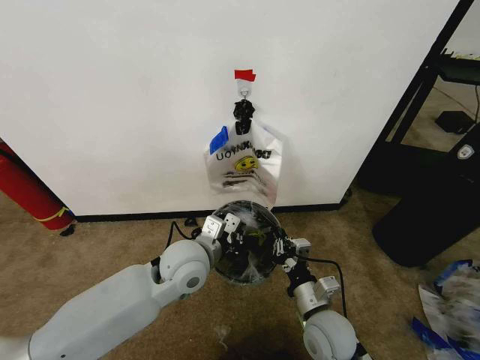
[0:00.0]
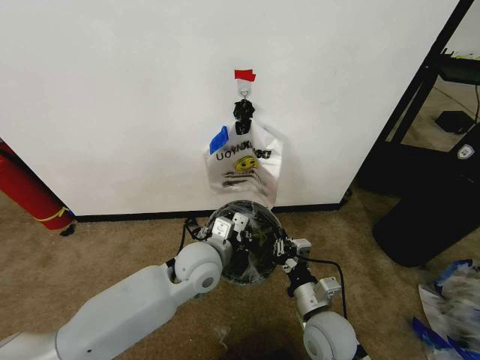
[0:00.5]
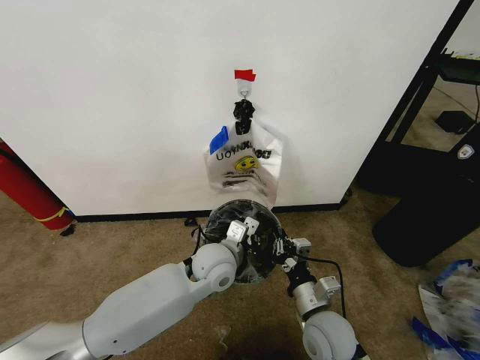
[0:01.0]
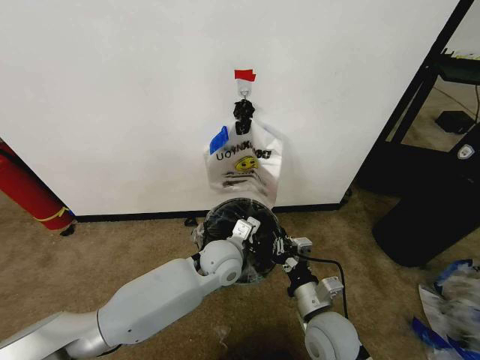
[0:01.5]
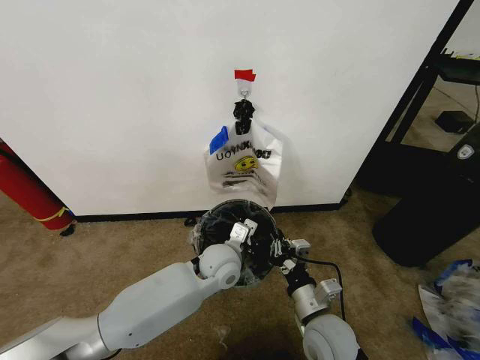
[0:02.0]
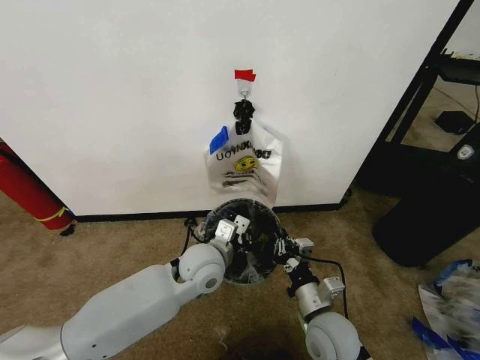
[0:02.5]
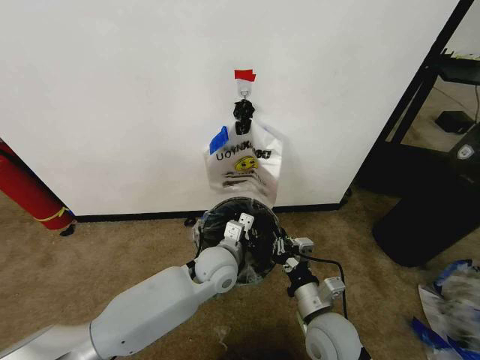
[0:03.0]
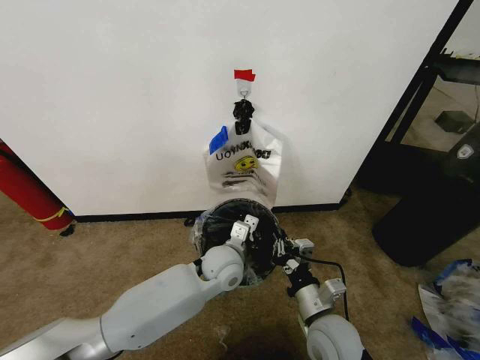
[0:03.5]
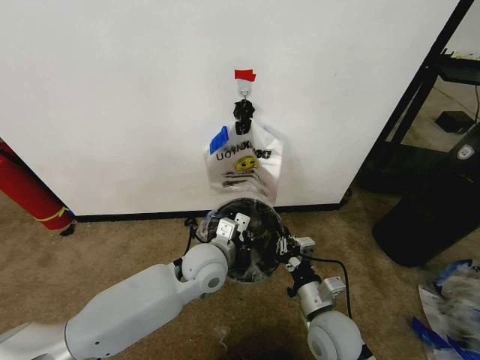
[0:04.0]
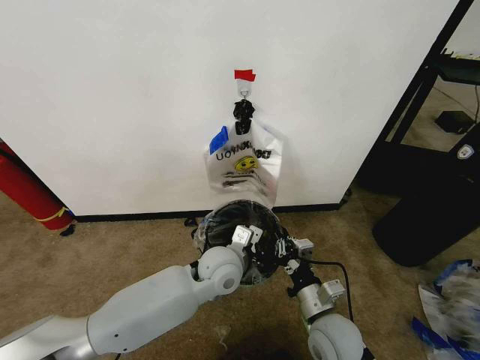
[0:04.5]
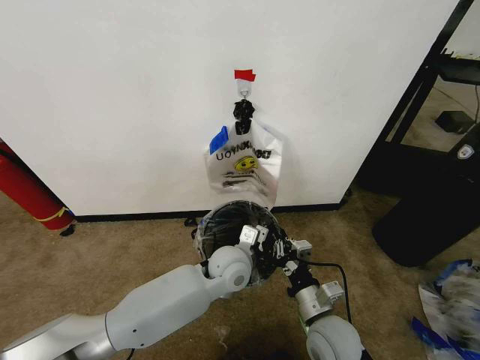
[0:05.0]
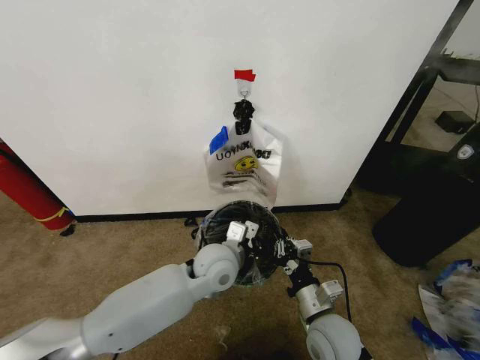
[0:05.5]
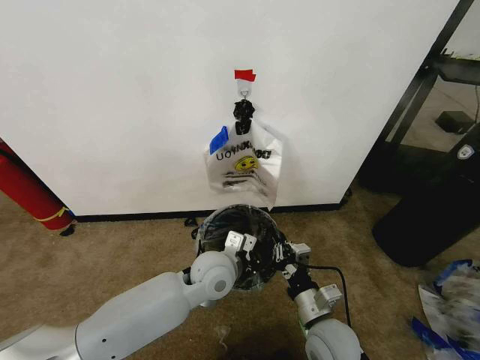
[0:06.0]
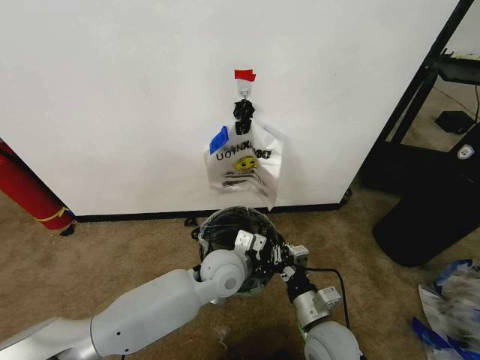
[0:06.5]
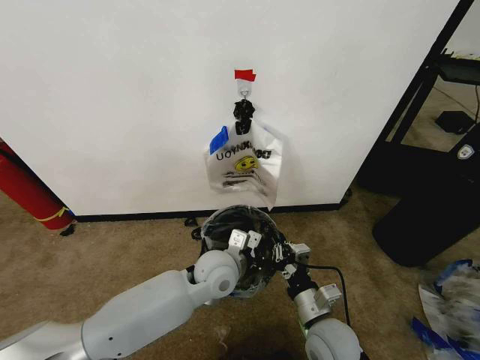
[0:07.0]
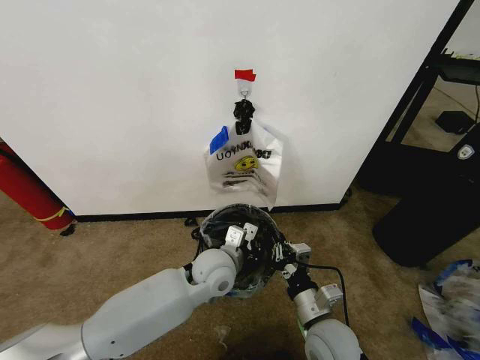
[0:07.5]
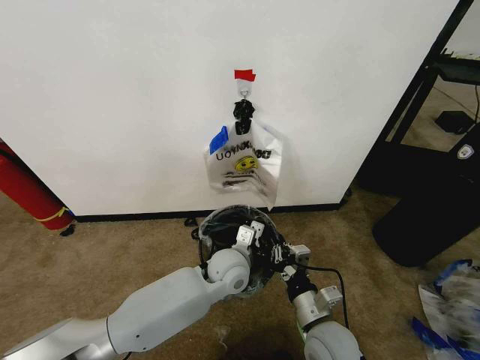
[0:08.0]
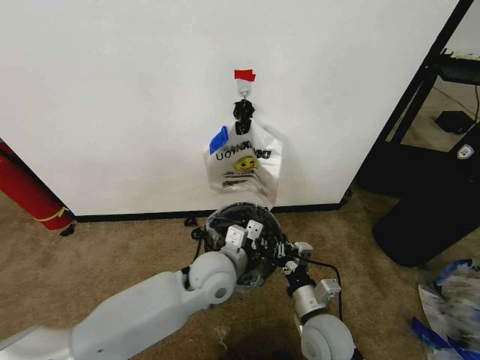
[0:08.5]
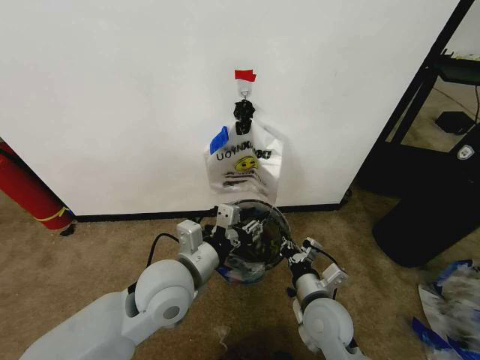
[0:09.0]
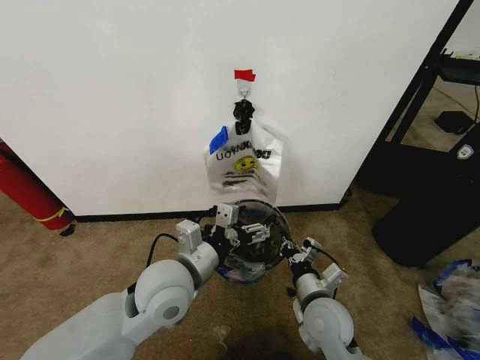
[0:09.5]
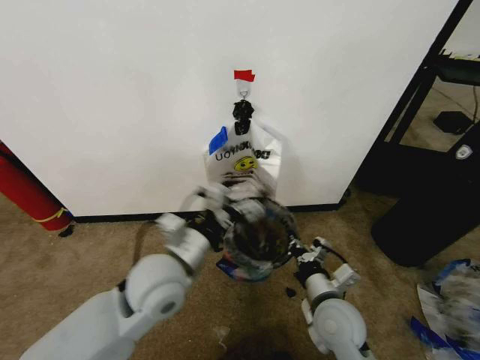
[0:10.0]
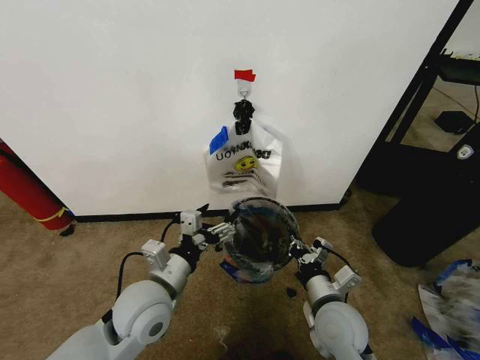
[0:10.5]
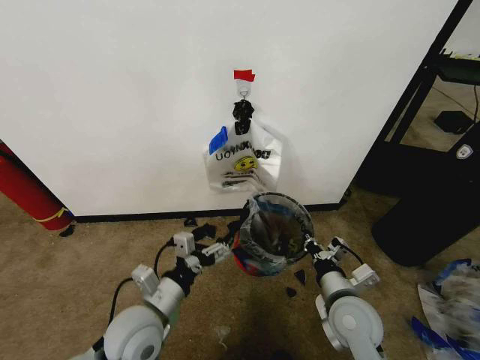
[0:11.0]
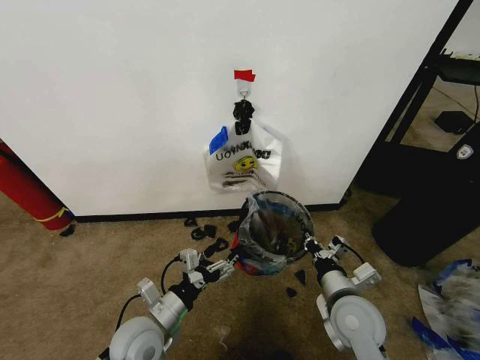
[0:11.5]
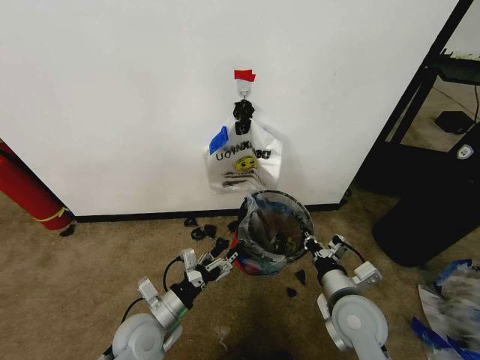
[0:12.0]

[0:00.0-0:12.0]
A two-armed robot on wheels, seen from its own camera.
Task of the whole recording: Pick up the garbage bag from the wall and place it over the trash bin.
0.0 to 2.0 s: The left gripper is displaced downward and to the right by approximately 10 cm.
2.0 to 4.0 s: The left gripper ends up about 5 cm from where it was.
6.0 to 8.0 s: The grippers stay close to where they were, moving slightly.
8.0 to 10.0 s: The left gripper shifts roughly 20 cm upward, to the left and backward, and opens its fingers.
10.0 to 12.0 s: The left gripper moves downward and to the left, about 20 cm.

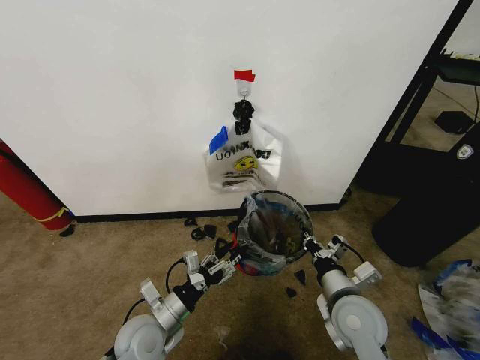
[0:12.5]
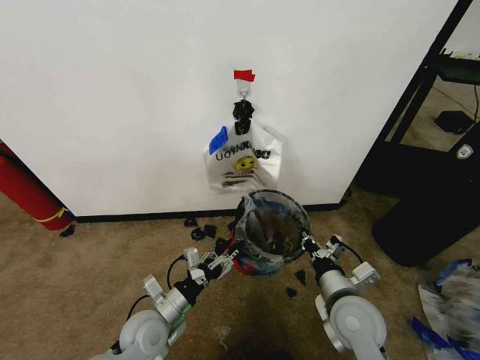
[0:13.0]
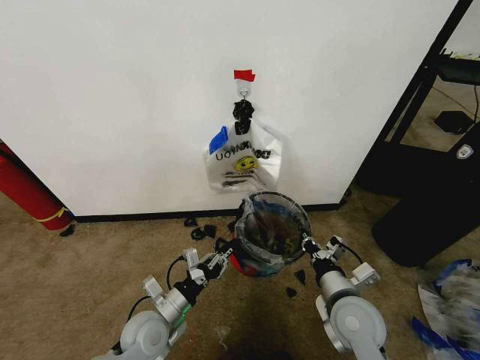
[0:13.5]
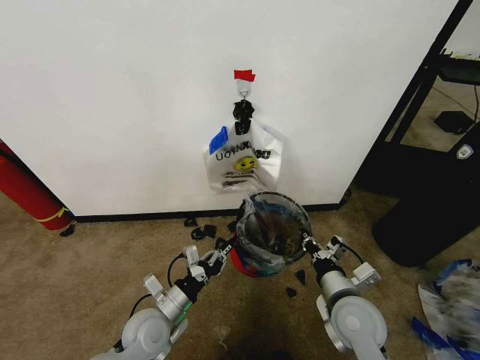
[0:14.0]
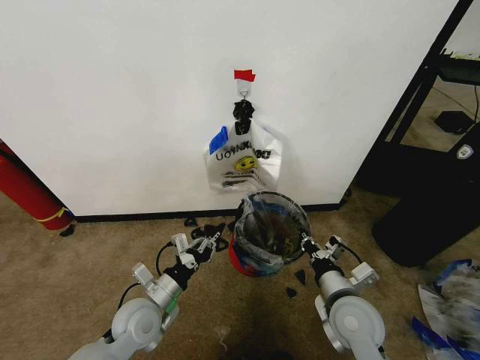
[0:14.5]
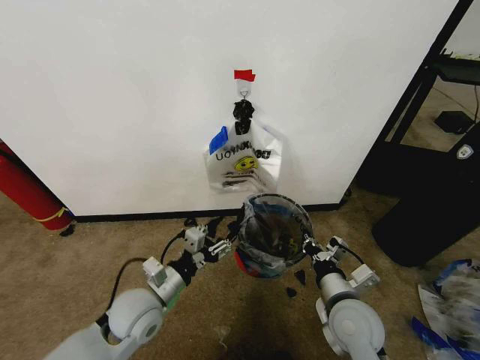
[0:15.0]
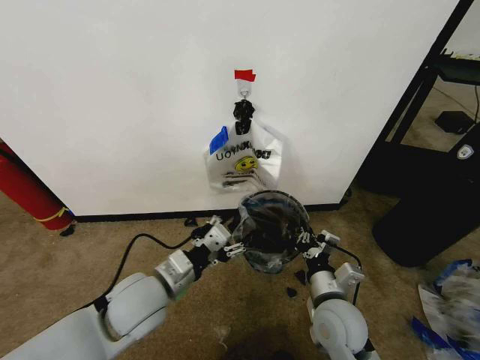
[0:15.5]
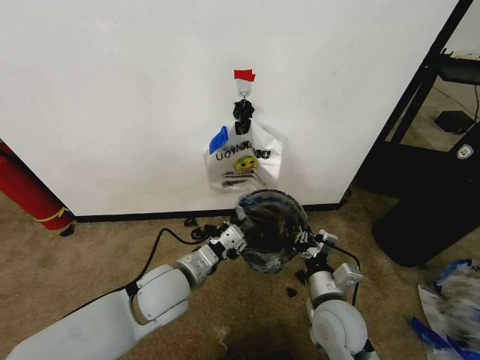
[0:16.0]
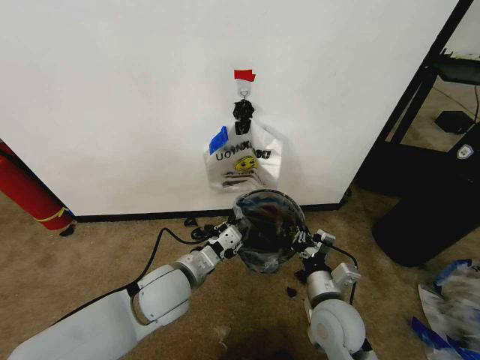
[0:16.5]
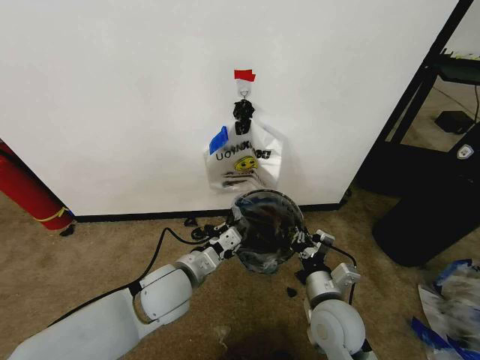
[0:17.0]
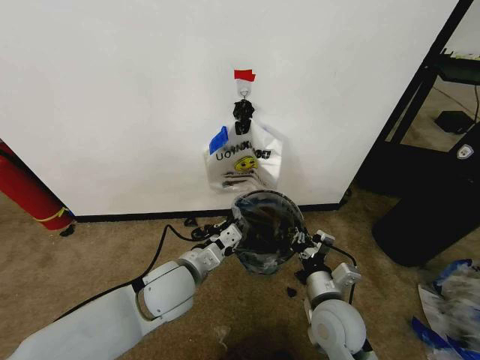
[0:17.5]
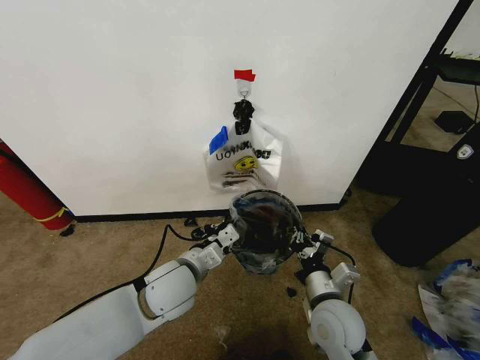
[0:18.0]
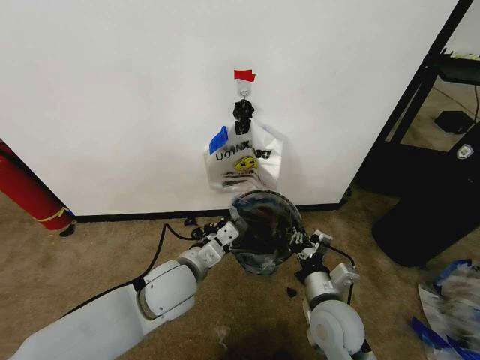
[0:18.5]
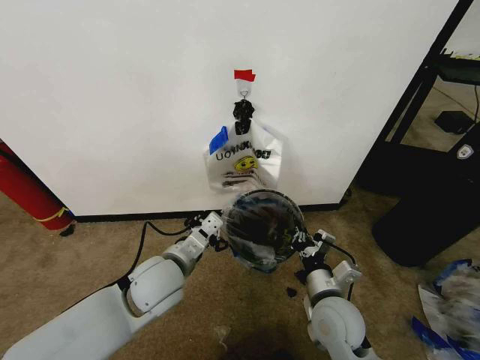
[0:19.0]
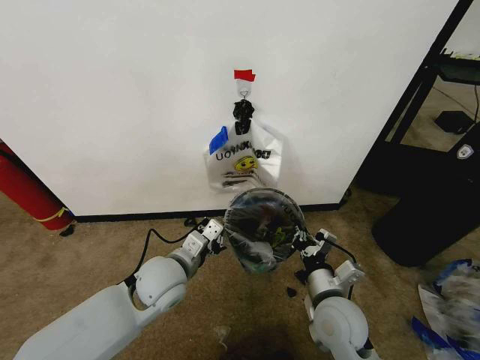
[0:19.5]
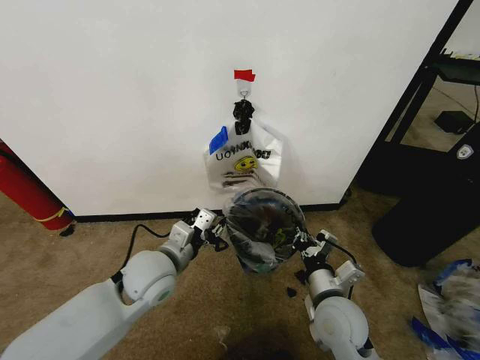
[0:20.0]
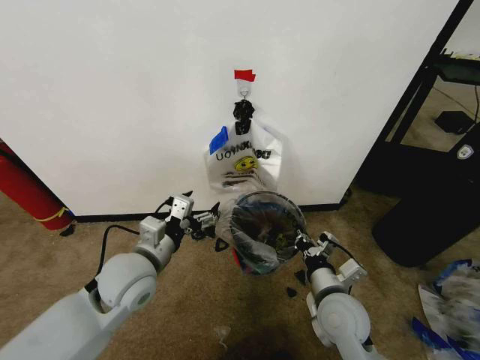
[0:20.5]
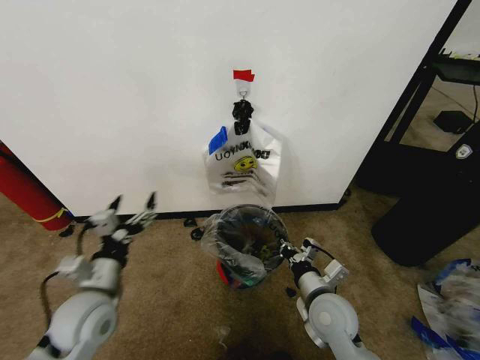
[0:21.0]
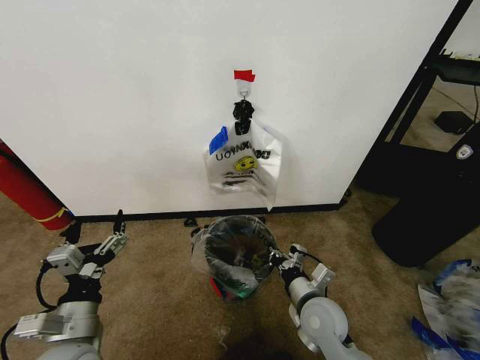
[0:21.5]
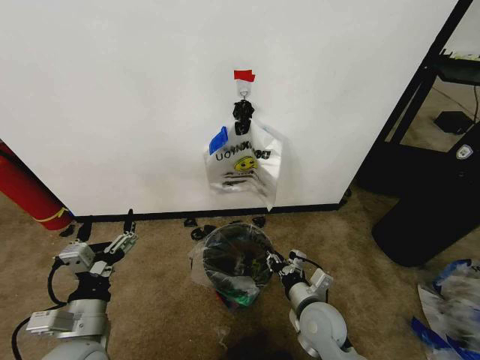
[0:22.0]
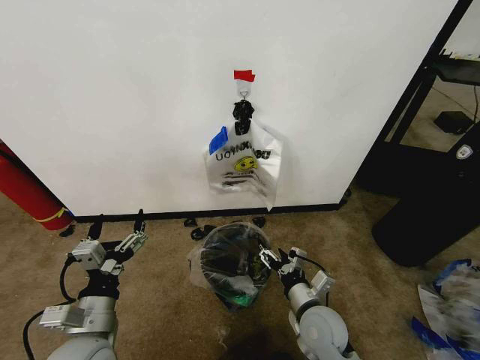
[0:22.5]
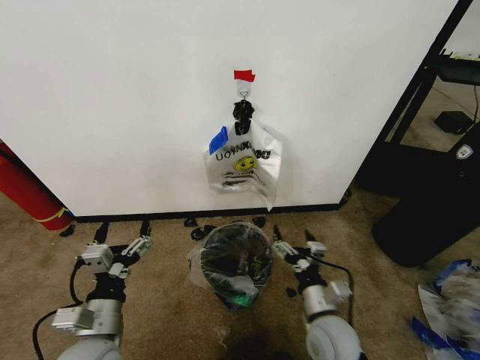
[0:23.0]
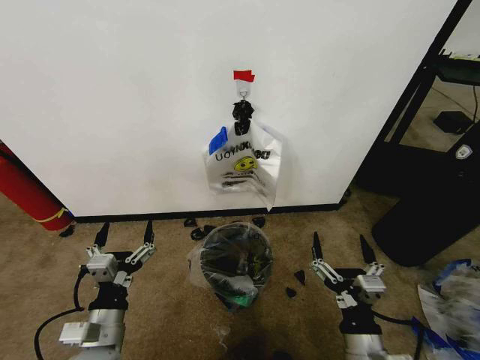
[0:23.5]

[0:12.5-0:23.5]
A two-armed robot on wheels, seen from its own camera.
Task of the whole recording: Pick up the garbage bag from the wall and place it over the trash bin.
12.5 to 14.5 s: The left gripper closes up.
14.5 to 16.0 s: The left gripper heads upward and to the right, covering about 10 cm, and opens and closes again.
16.0 to 18.0 s: The grippers stay close to where they were, moving slightly.
18.0 to 20.0 s: The left gripper changes place by about 5 cm.
20.0 to 21.5 s: The left gripper travels backward and to the left by approximately 20 cm, and opens its fingers.
21.5 to 23.5 s: The right gripper heads backward, covering some 15 cm, and opens up.

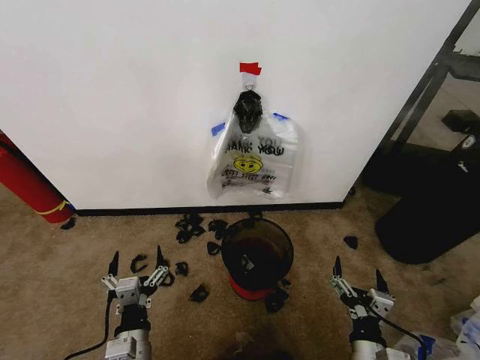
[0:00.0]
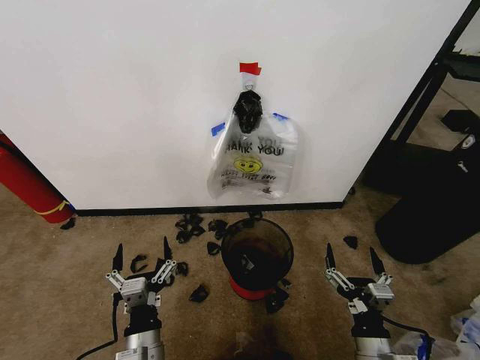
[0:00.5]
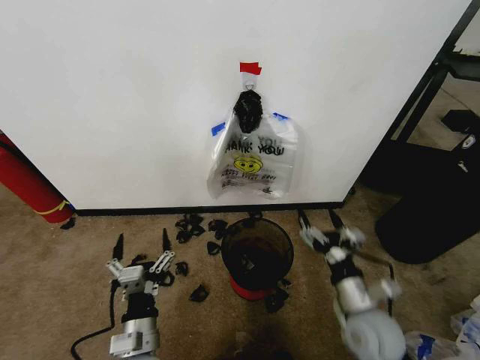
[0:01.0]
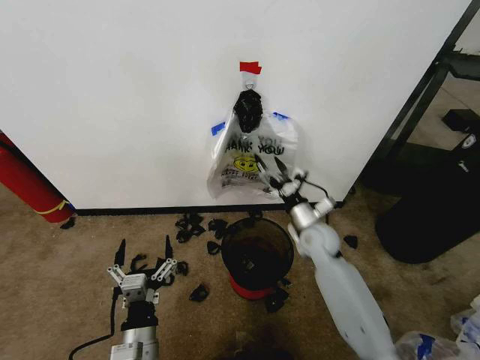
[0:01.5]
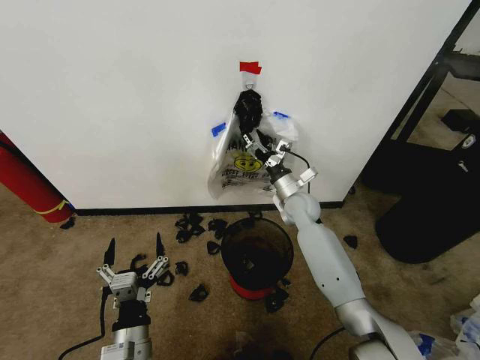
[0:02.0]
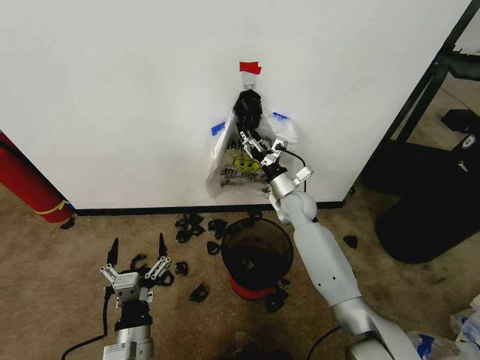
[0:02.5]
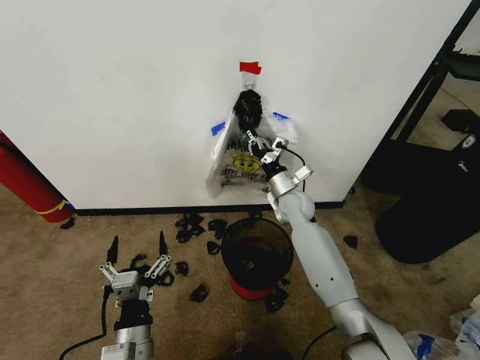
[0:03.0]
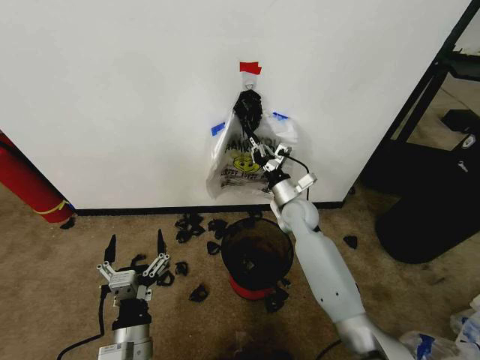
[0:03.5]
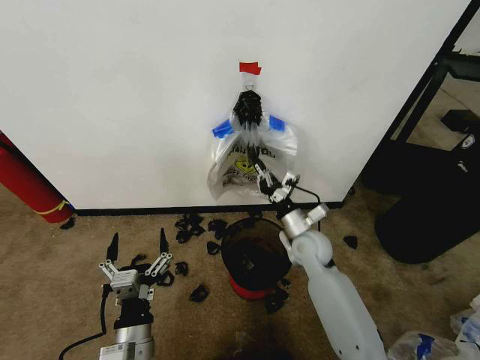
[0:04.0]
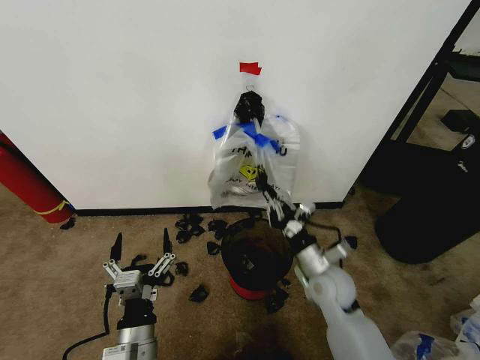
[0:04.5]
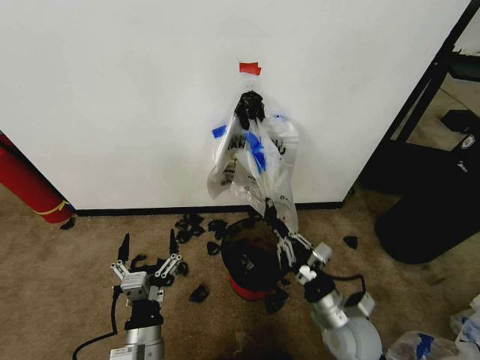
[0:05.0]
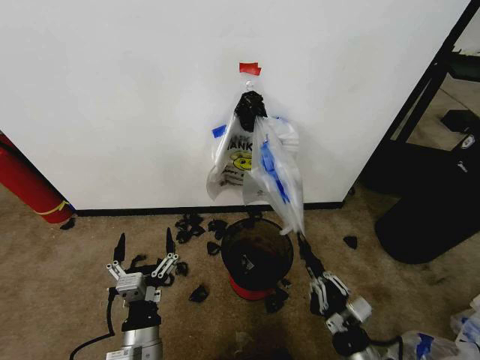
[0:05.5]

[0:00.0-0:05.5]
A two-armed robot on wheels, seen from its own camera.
Task of the whole recording: Pick up the garbage bag from the wall and place it over the trash bin.
2.0 to 3.5 s: The right gripper closes up.
3.5 to 5.5 s: The right gripper moves backward, approximately 35 cm.
